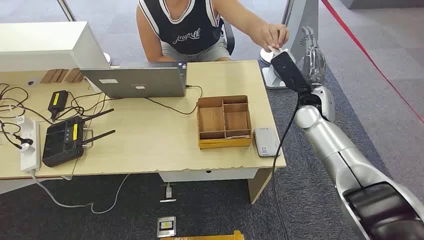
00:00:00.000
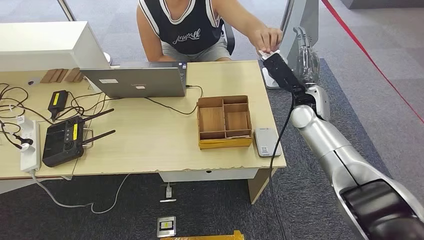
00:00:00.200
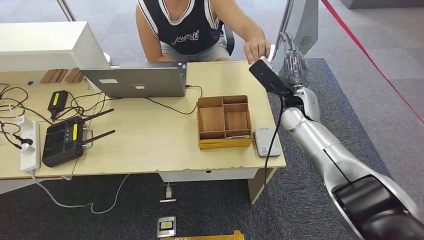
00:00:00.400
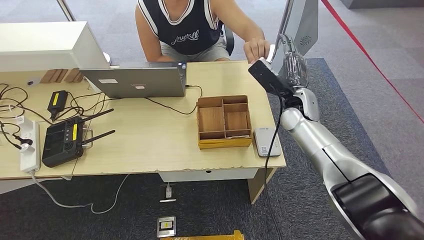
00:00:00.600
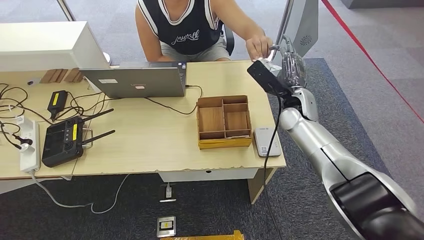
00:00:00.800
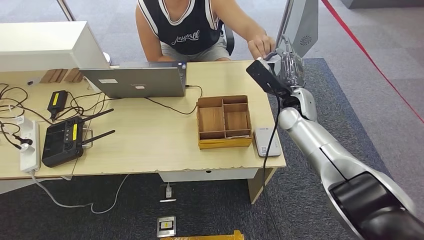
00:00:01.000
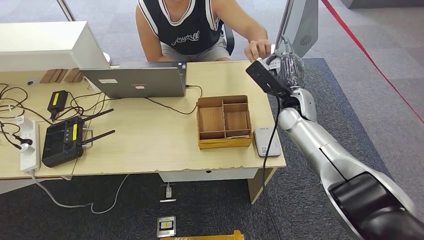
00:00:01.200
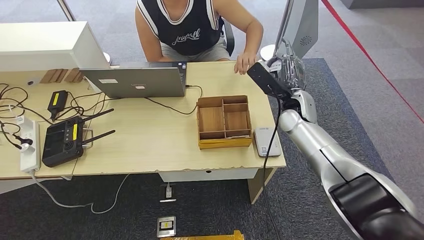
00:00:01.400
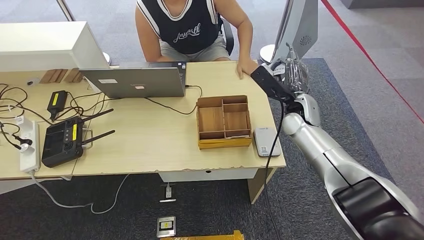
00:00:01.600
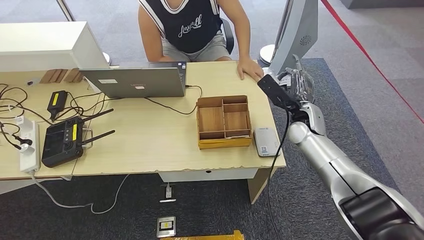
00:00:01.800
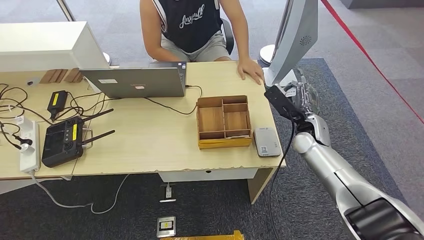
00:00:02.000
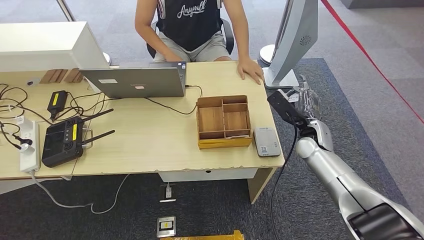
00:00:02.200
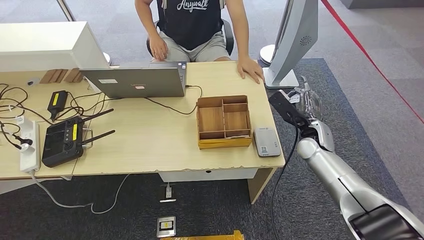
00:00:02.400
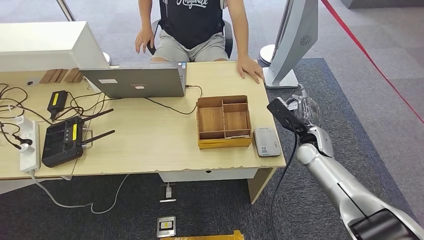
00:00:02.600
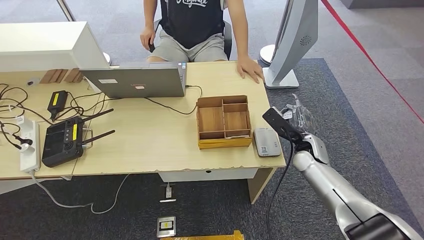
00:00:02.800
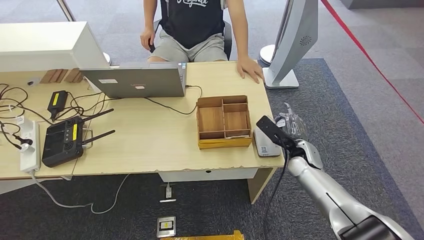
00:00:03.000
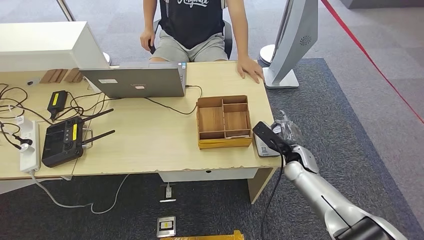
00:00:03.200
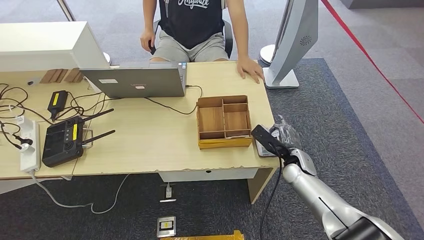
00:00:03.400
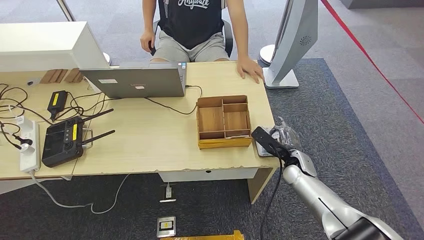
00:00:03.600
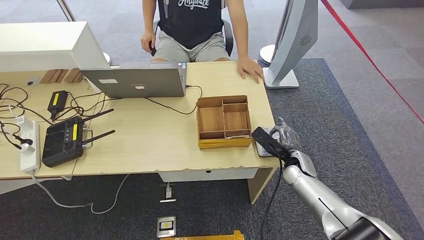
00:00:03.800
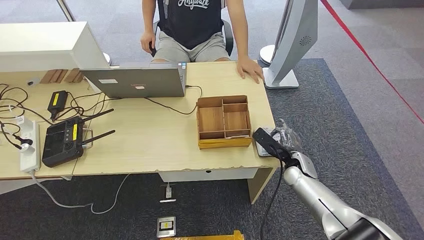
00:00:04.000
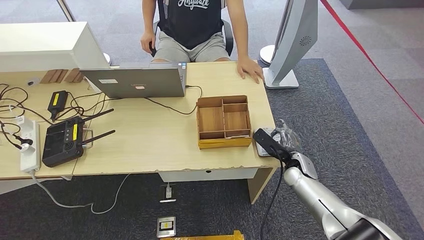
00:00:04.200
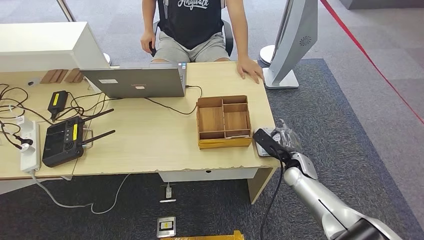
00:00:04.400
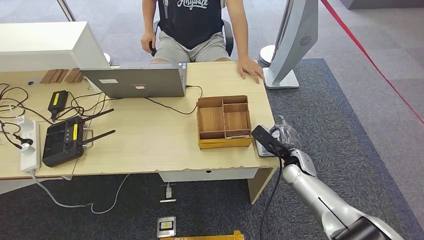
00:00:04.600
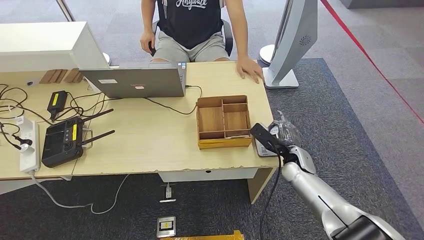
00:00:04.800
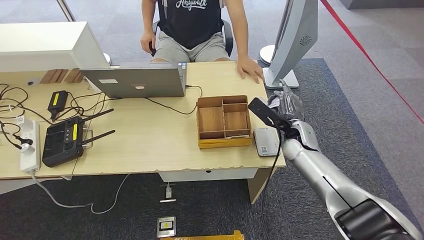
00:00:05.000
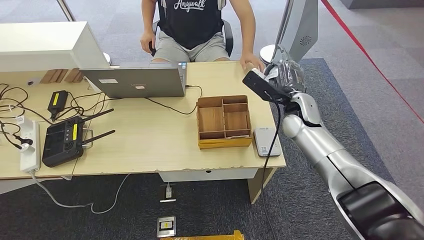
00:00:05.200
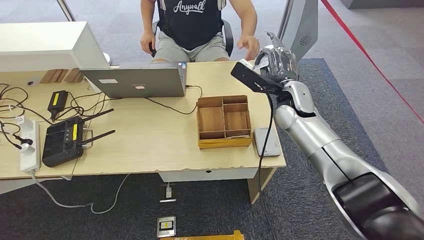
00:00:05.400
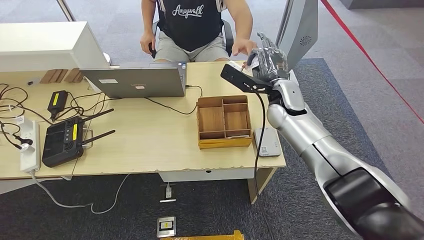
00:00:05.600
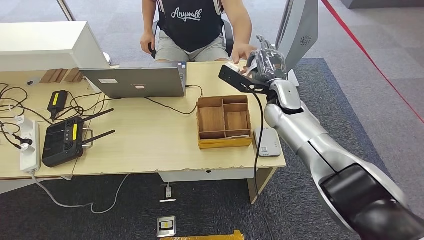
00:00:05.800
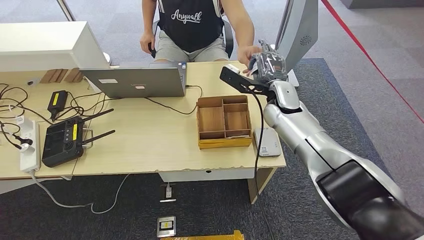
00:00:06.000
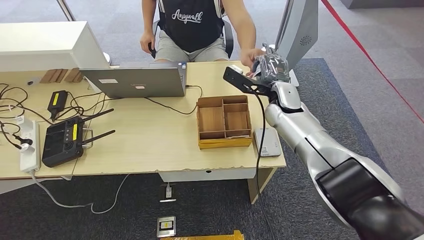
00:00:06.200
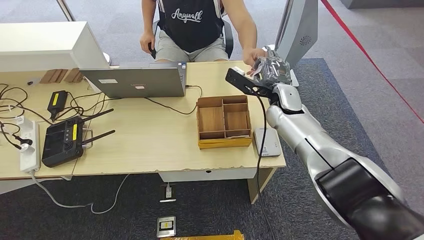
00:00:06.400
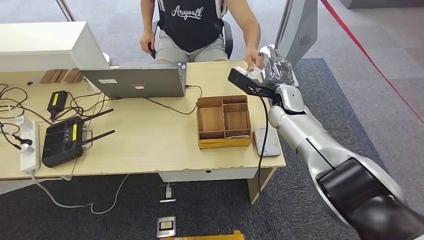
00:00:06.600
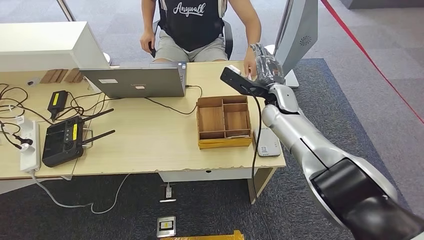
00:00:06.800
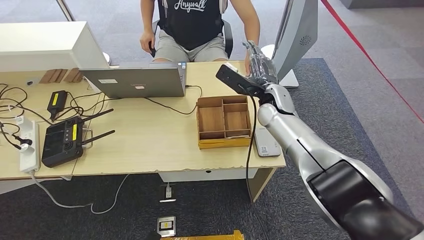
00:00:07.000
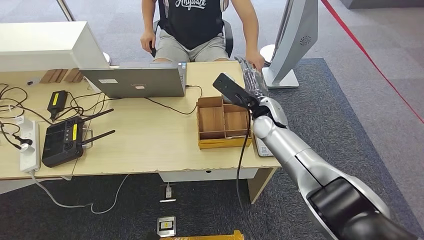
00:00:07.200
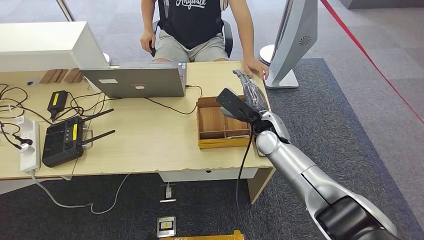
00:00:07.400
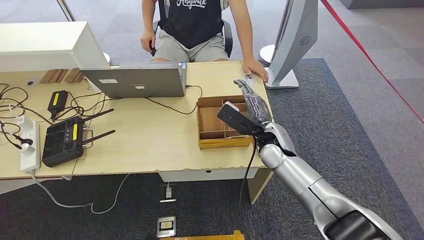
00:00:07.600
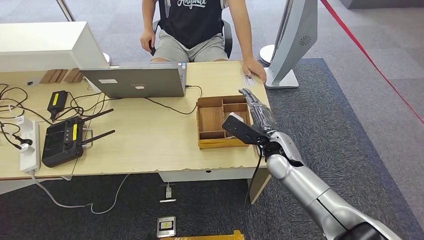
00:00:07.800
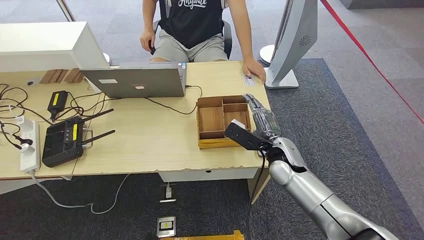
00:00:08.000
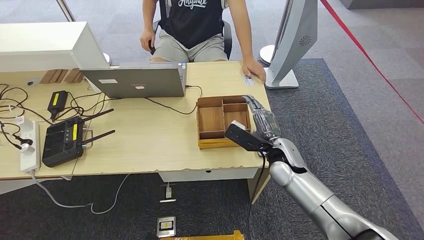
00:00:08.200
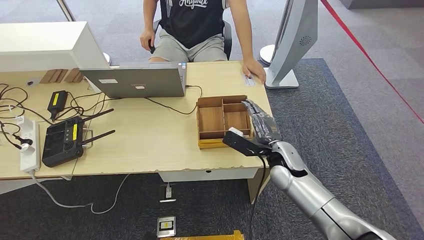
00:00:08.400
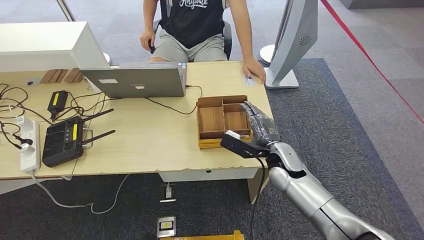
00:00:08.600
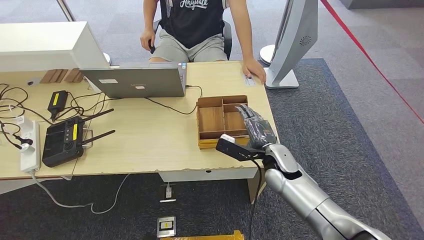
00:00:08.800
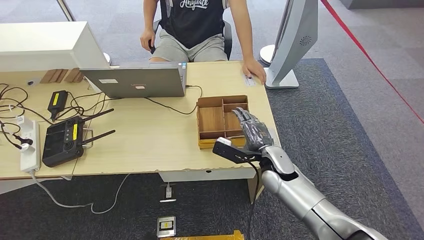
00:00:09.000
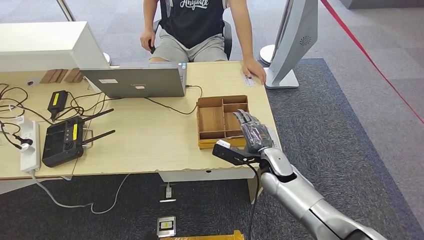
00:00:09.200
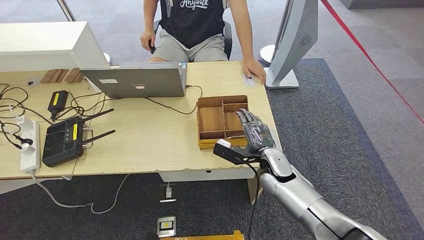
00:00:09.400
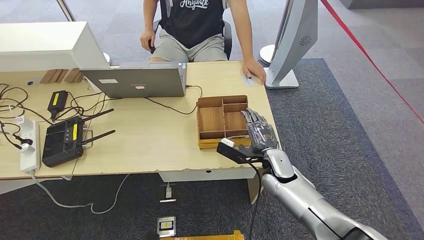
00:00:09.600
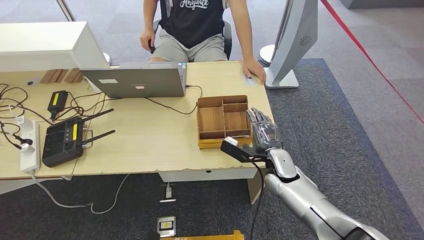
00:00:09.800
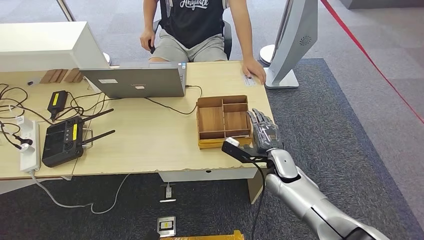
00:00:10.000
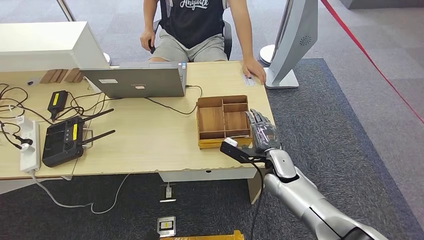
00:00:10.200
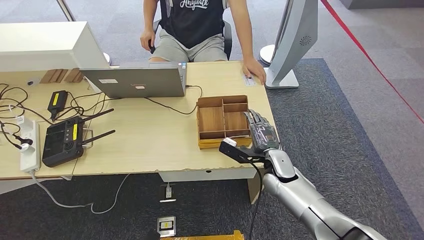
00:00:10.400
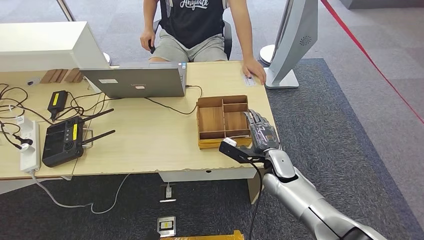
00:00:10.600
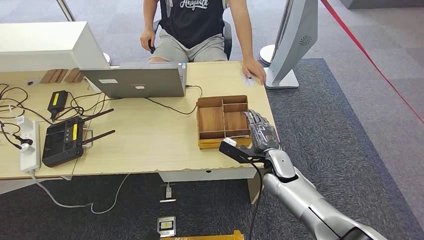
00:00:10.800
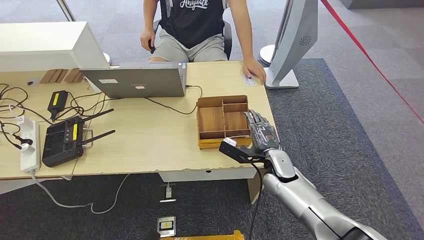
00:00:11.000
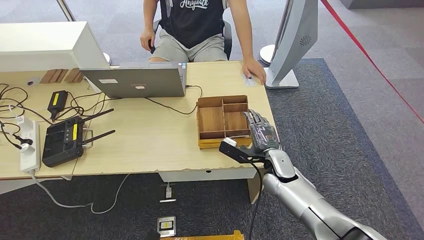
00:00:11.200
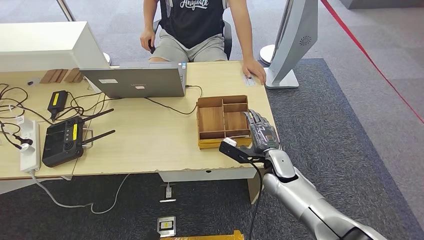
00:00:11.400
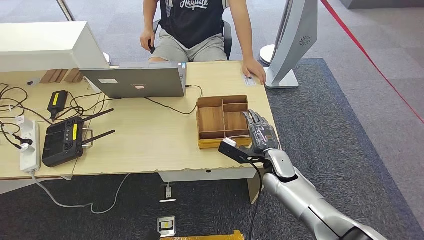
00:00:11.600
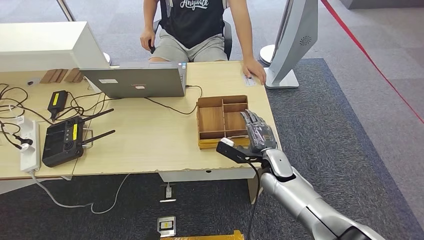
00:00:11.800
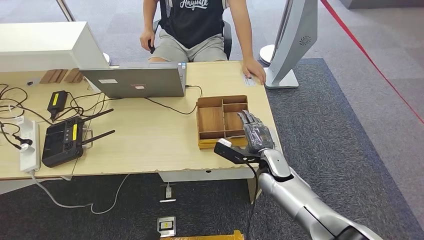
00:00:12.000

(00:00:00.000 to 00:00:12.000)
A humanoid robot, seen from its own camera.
Step, 00:00:00.000 - 00:00:01.200: Take the ID card from the person's hand.
Step, 00:00:01.400 - 00:00:04.600: Place the ID card on the card reader.
Step, 00:00:04.800 - 00:00:06.800: Hand the ID card to the person.
00:00:01.600 - 00:00:03.000: The right hand goes some 15 cm downward and backward.
00:00:03.000 - 00:00:04.400: There are only small adjustments of the hands.
00:00:04.400 - 00:00:06.000: The right hand is displaced upward, forward and to the left by roughly 25 cm.
00:00:06.000 - 00:00:07.600: The right hand heads downward and backward, covering about 10 cm.
00:00:07.600 - 00:00:09.000: The right hand shifts about 5 cm downward.
00:00:09.000 - 00:00:12.000: The hands stay close to where they were, moving slightly.

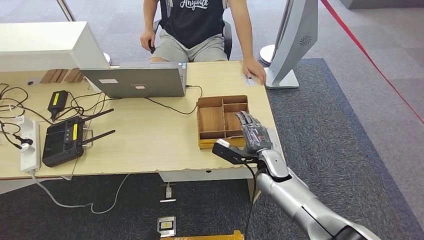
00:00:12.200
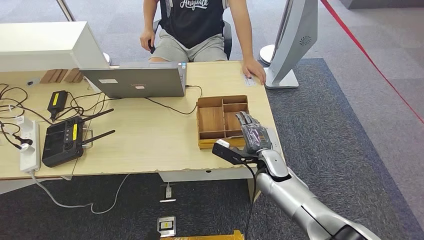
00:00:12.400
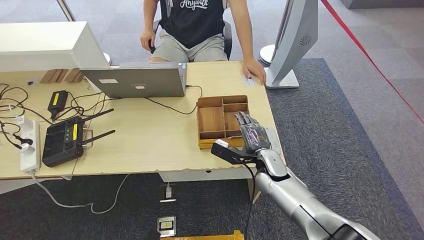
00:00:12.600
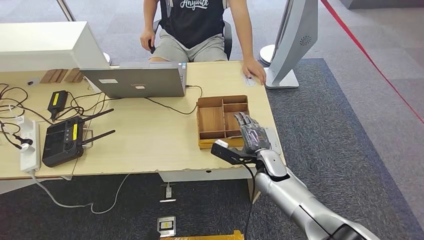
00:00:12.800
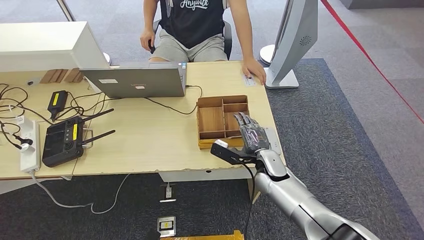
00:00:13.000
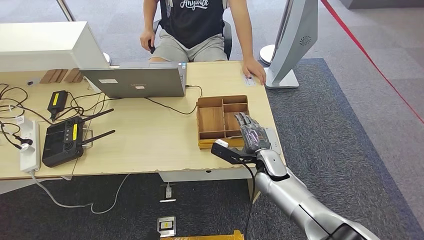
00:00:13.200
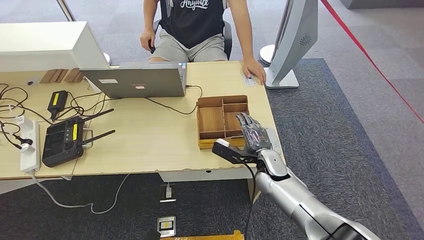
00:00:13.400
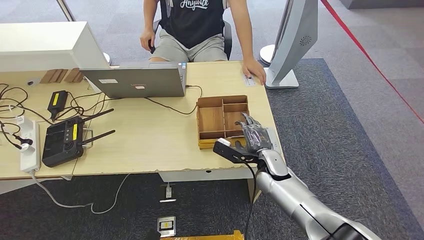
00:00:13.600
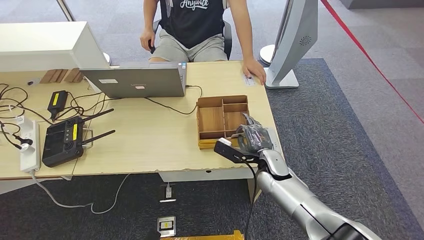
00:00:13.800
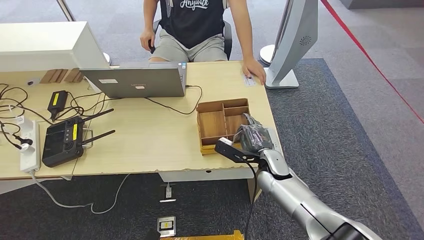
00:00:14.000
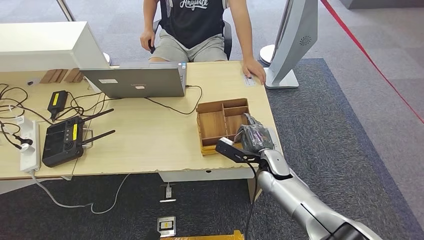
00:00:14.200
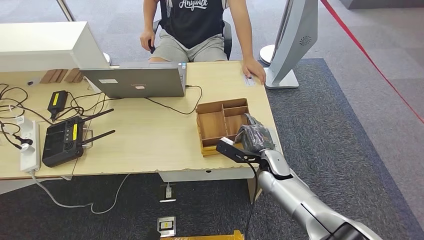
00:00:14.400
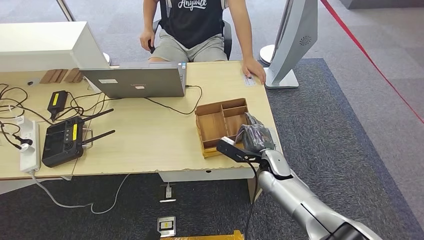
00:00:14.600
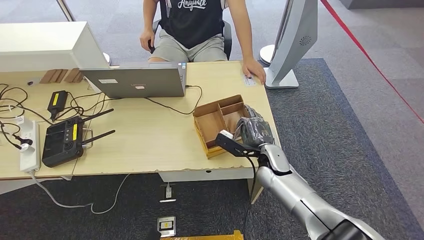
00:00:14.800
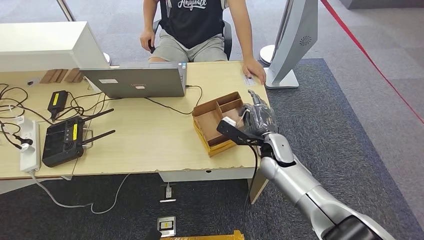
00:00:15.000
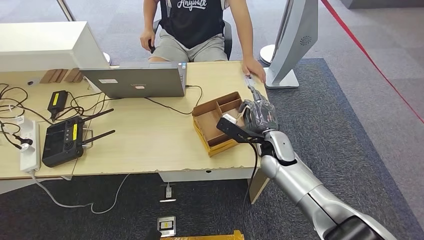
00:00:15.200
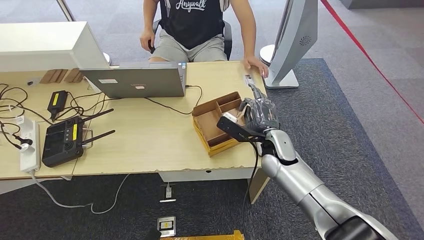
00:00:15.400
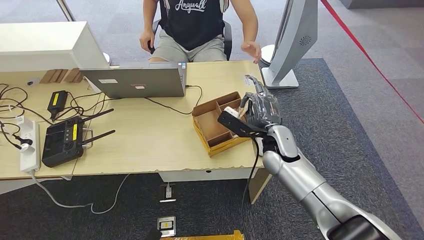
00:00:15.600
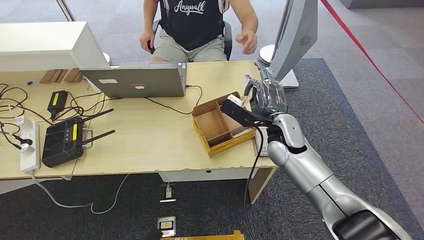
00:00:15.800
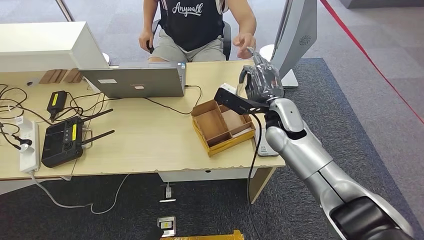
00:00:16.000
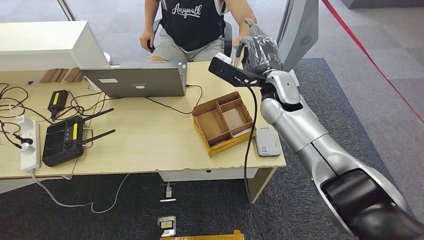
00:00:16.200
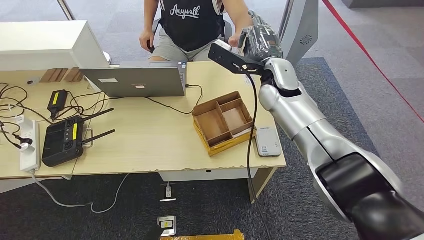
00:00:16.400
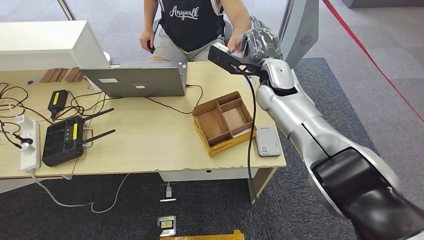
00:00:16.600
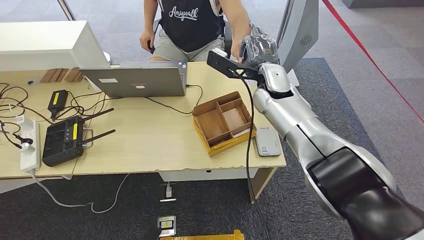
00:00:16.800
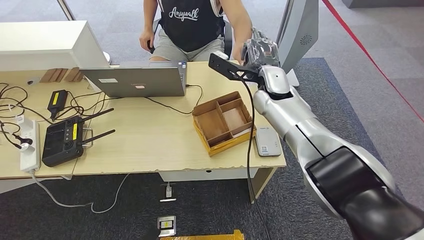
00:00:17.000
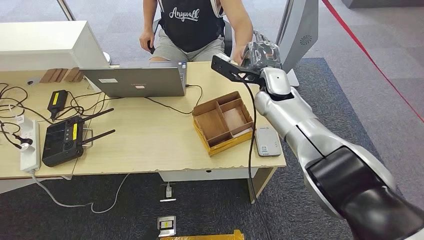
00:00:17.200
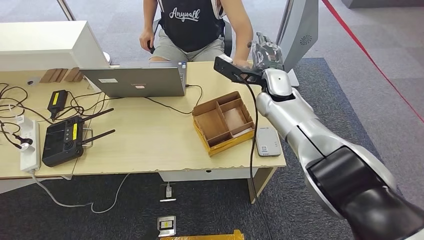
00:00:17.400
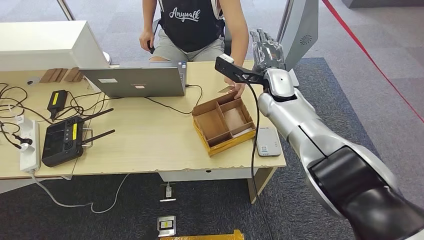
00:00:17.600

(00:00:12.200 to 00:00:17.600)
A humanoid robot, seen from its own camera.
Step, 00:00:12.200 - 00:00:14.800: Pick up the room key from the key card box.
Step, 00:00:15.000 - 00:00:17.600: Hand the room key to the person.
00:00:12.200 - 00:00:13.600: Both hands stay about where they are.
00:00:13.600 - 00:00:15.000: The right hand shifts by about 5 cm.
00:00:15.000 - 00:00:16.200: The right hand is displaced upward and forward by some 20 cm.
